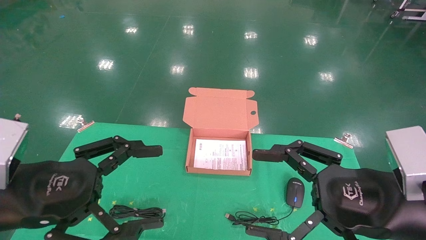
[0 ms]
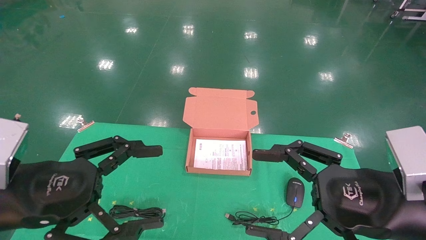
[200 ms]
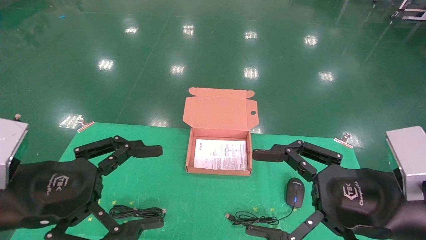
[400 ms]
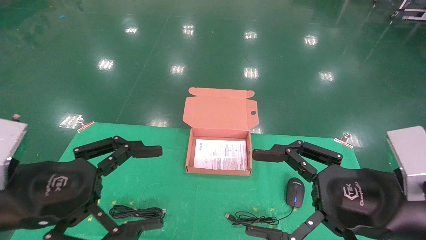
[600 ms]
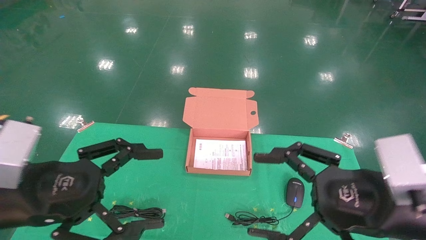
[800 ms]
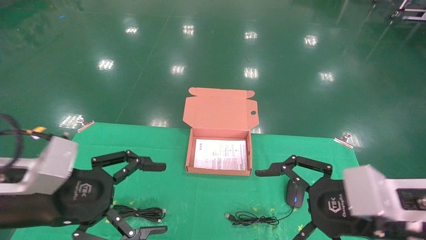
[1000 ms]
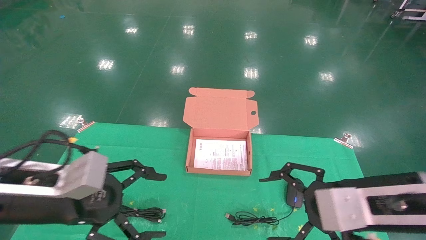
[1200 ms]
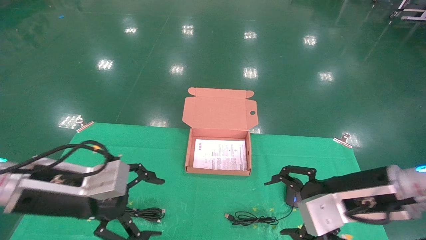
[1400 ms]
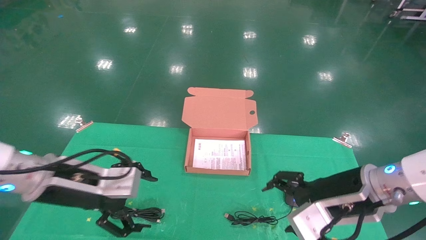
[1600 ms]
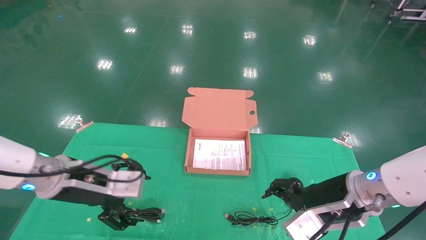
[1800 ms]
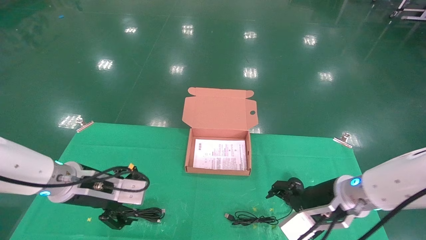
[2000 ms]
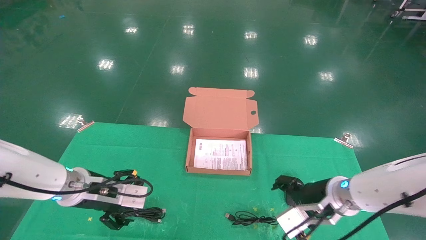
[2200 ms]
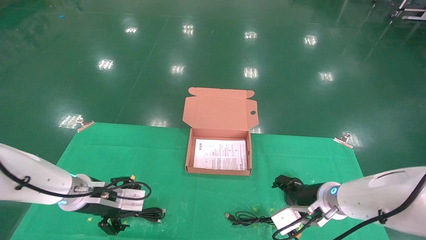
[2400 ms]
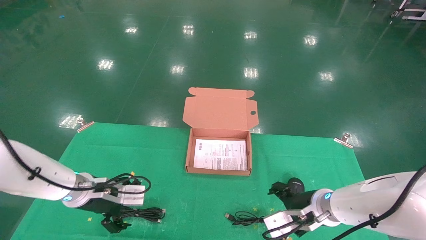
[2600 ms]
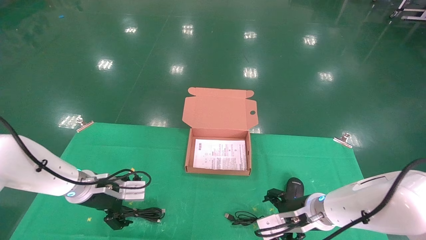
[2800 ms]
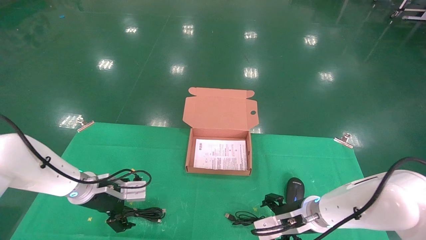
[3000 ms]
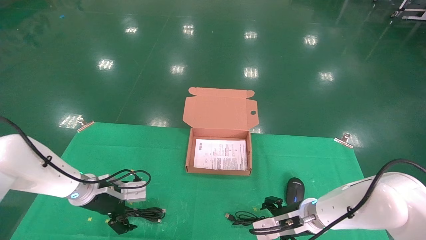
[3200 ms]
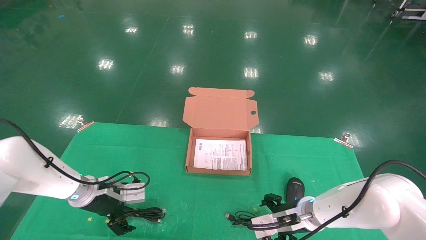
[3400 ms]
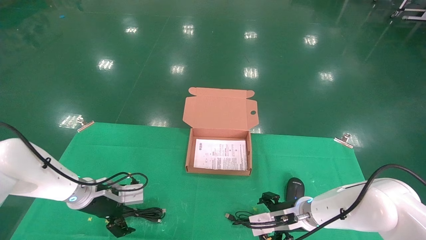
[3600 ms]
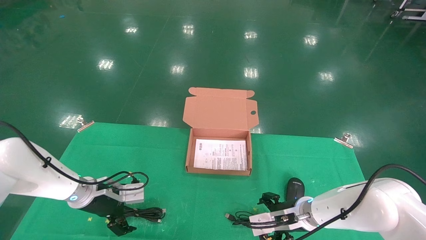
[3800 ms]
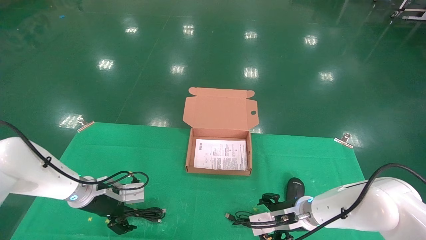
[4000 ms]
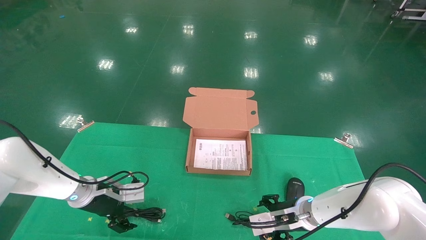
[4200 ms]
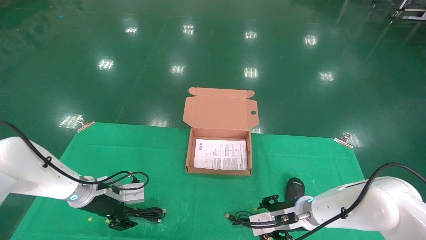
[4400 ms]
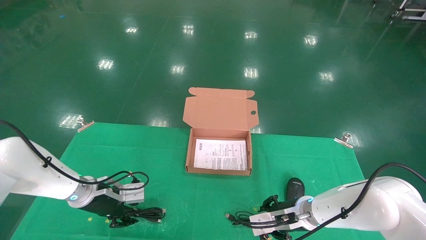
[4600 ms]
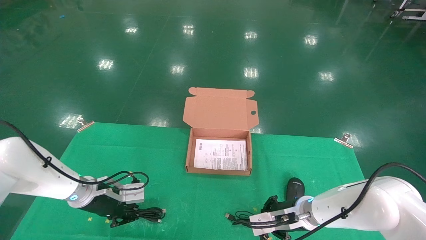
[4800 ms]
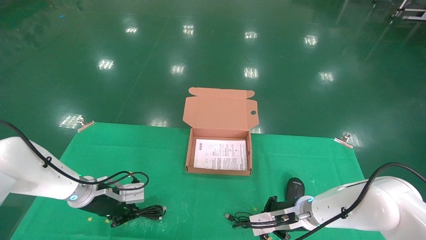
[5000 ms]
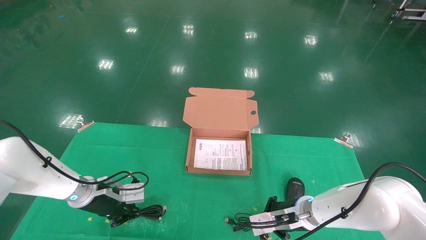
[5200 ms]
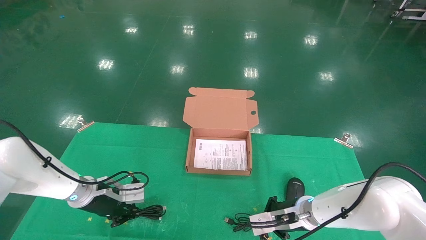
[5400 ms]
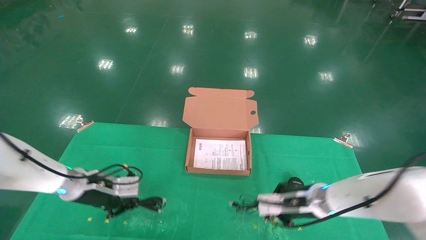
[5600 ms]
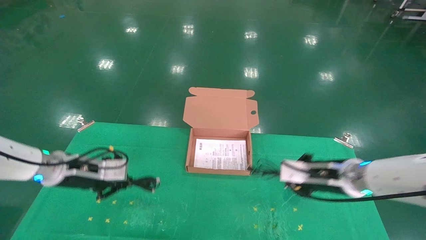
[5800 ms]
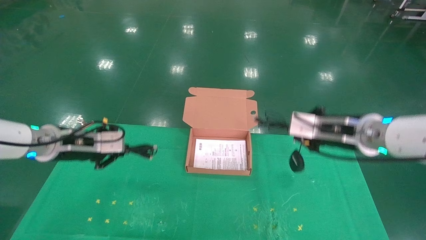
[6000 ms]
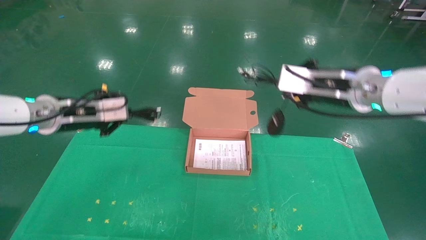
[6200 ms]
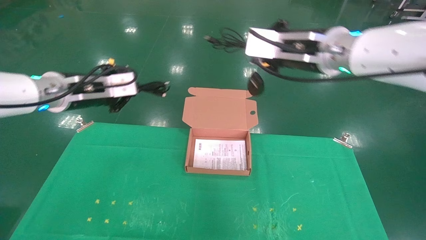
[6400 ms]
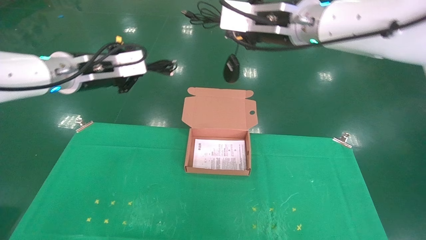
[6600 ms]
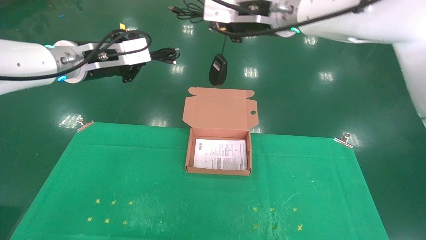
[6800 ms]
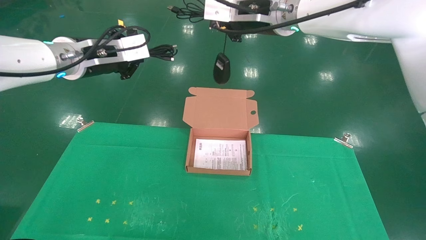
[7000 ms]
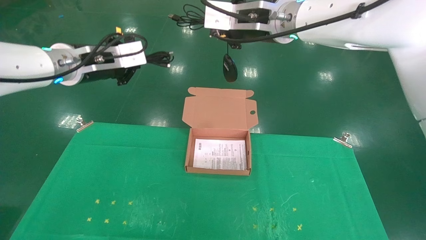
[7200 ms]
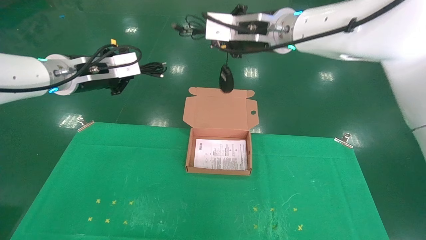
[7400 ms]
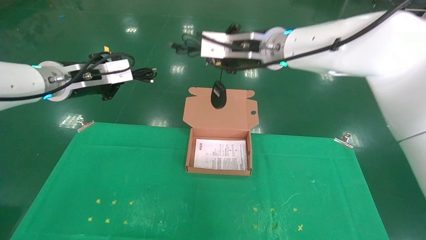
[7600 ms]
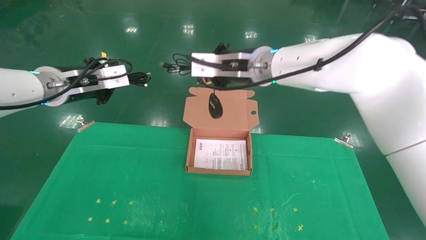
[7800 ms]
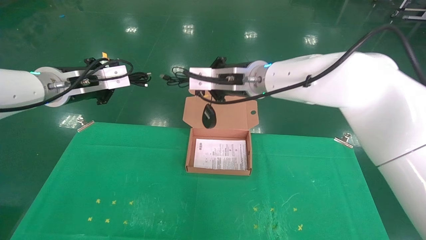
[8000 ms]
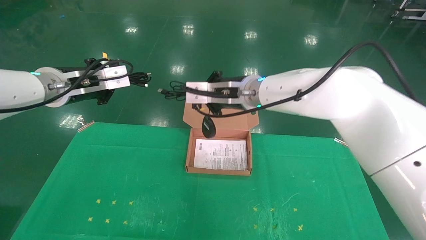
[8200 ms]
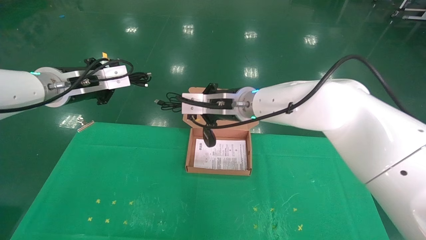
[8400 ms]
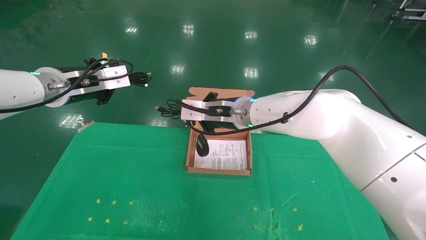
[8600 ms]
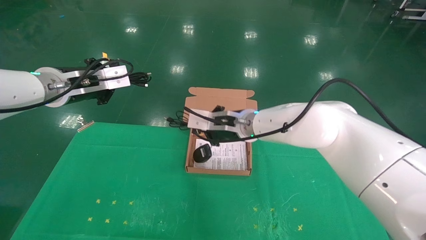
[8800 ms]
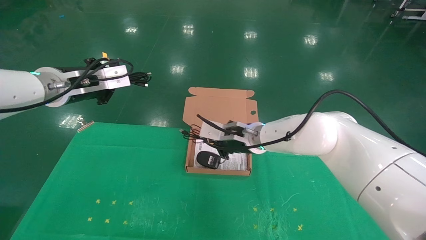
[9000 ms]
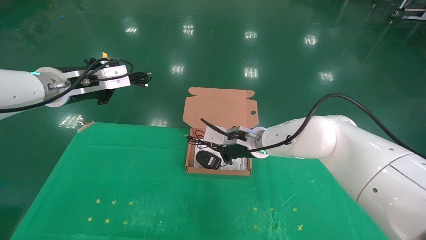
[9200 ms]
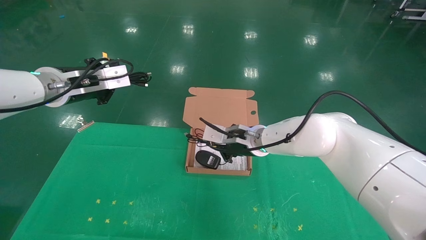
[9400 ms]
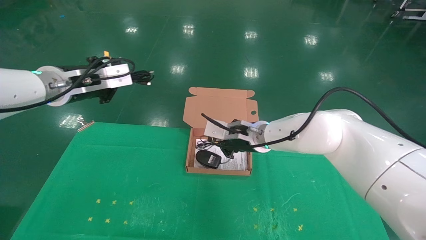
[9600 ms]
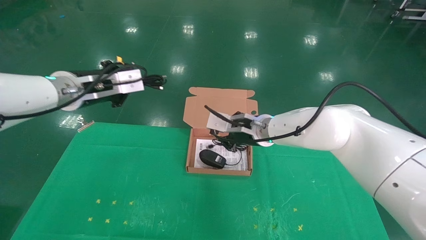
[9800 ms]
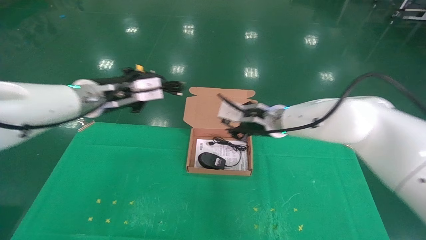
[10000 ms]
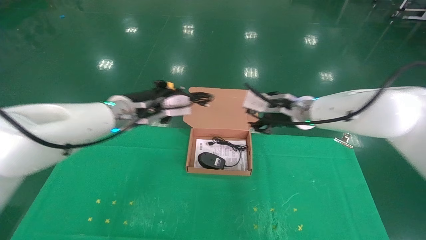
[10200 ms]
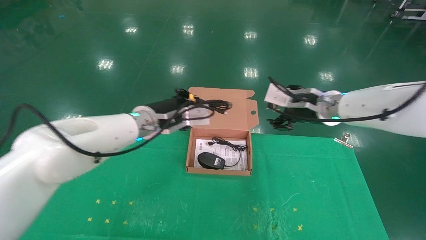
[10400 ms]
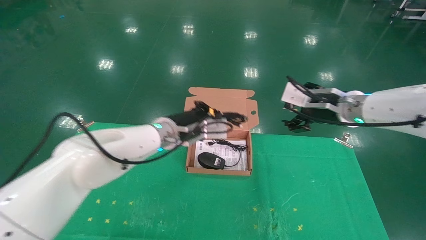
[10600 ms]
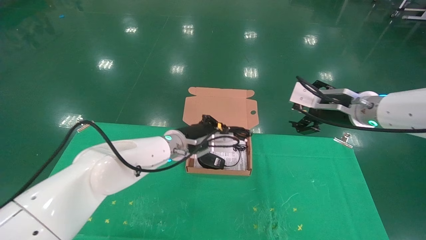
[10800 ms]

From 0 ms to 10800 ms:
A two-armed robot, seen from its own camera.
Task of the whole recording: grasp data cable left put into box grasp mouse right put into box.
Step, from 600 ms to 5000 ms: Grab and pick up both the mouse and power cord from the accessory packaging area at the same time.
From 0 ms to 1600 ms: Both grippers move forward, approximately 10 cm.
From 1600 ms to 3000 ms: The left gripper travels forward and downward by roughly 15 cm, while the right gripper is displaced downward and forward by roughly 15 cm.
From 3000 ms to 4600 ms: The right gripper closes its fingers, while the left gripper closes its fingers.
From 4600 ms to 6200 ms: The two grippers go approximately 25 cm upward. The right gripper closes. Meanwhile the left gripper closes up.
From 6200 ms to 7800 ms: The left gripper moves upward, about 5 cm. The right gripper shifts about 15 cm to the left.
From 7800 ms to 9200 ms: The right gripper shifts about 15 cm downward.
From 9200 ms to 10800 ms: The left gripper travels to the right and downward by about 25 cm; the right gripper moves to the right and upward, about 20 cm, and opens up.

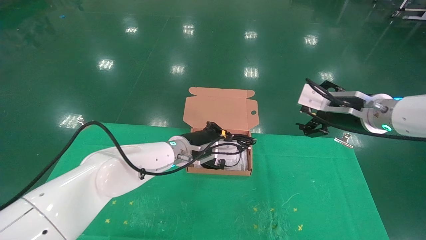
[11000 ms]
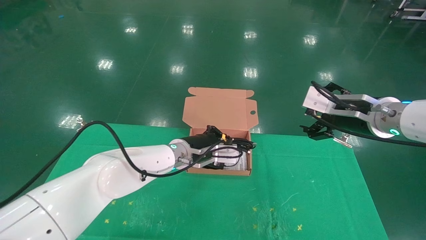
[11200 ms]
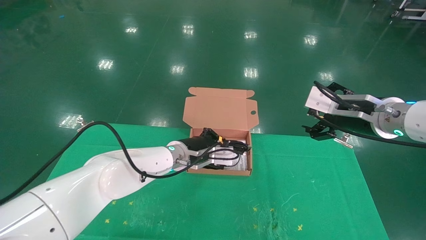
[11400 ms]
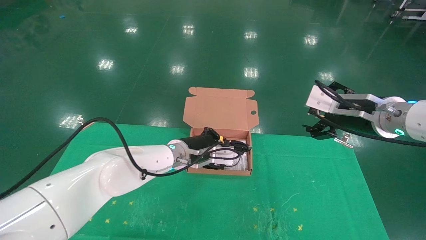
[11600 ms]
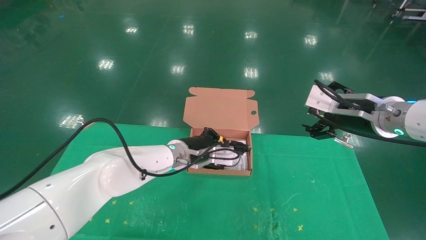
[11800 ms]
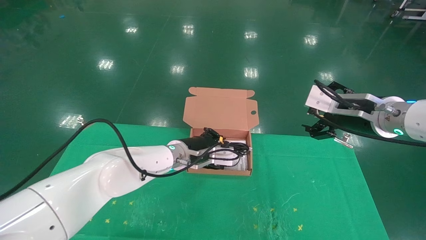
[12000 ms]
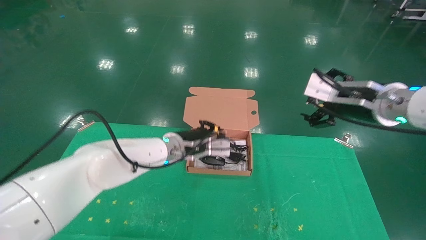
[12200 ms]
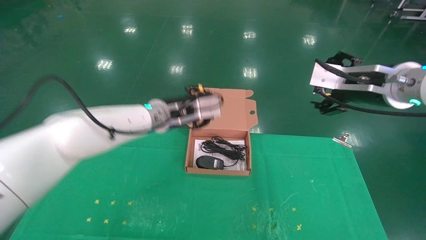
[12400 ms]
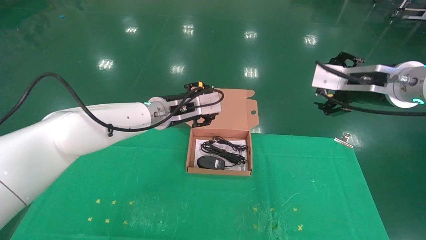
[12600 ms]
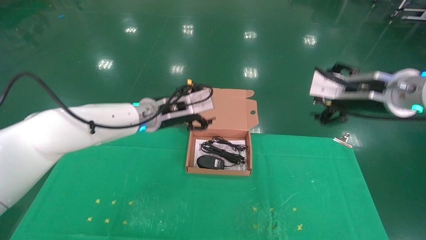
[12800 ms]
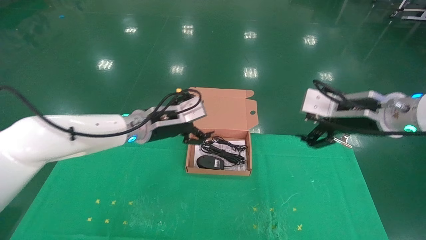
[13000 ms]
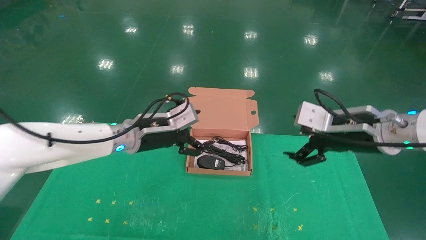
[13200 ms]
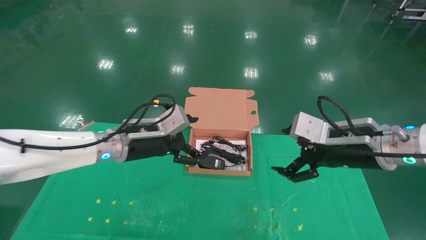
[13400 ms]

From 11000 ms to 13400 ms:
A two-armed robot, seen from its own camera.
Task of the whole recording: grasp data cable left put into box grasp mouse right put into box.
From 11000 ms to 12200 ms: The grippers make only small movements.
From 12200 ms to 13400 ms: The right gripper goes about 5 cm downward, while the left gripper shifts about 10 cm to the left and backward, and opens its fingers.

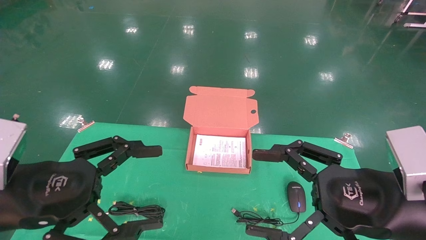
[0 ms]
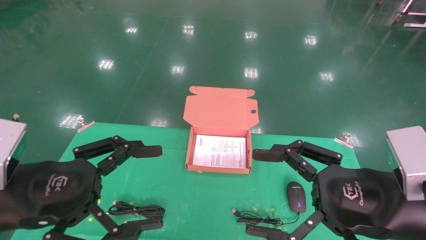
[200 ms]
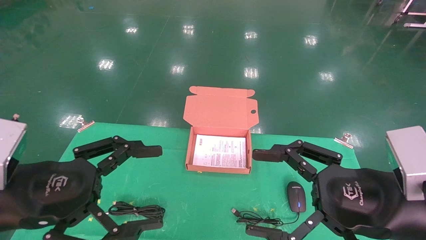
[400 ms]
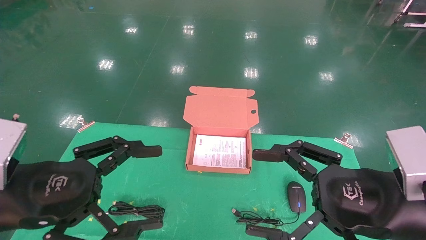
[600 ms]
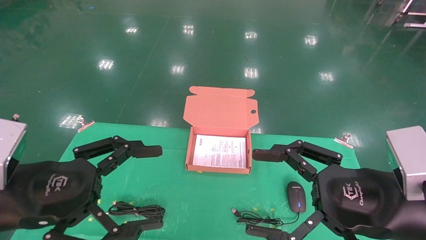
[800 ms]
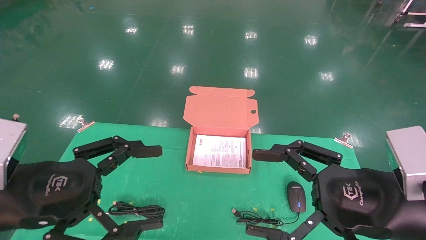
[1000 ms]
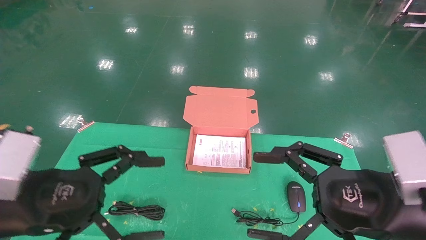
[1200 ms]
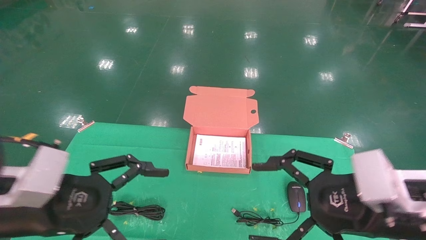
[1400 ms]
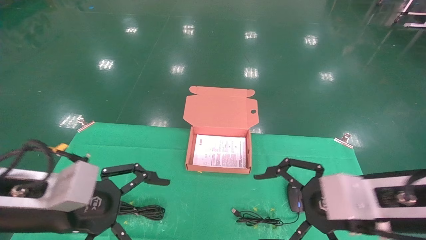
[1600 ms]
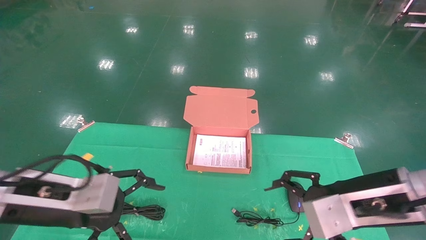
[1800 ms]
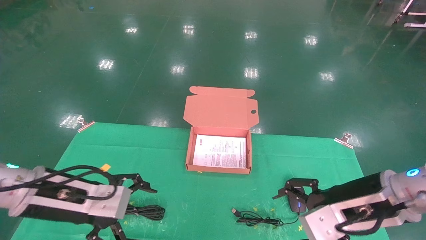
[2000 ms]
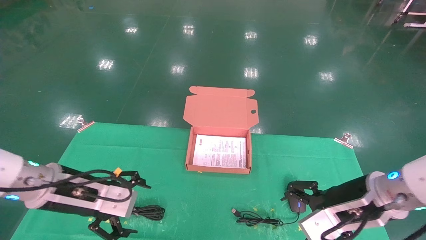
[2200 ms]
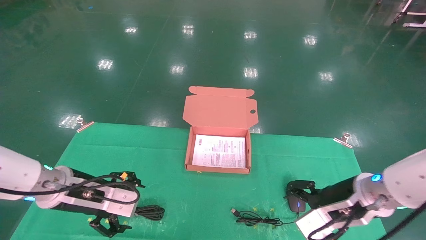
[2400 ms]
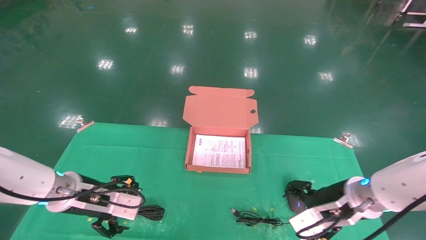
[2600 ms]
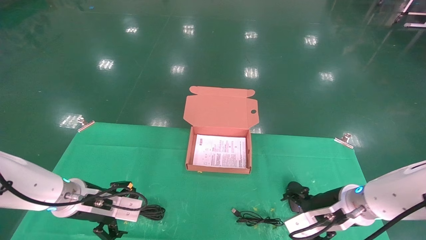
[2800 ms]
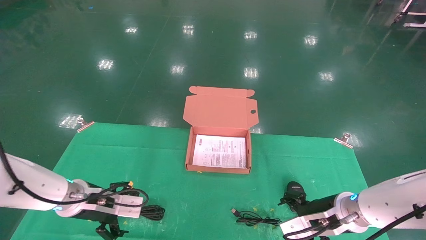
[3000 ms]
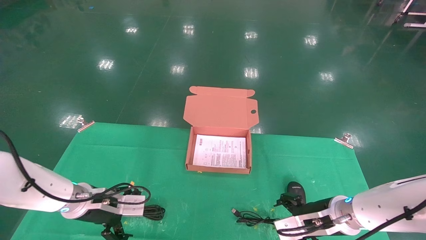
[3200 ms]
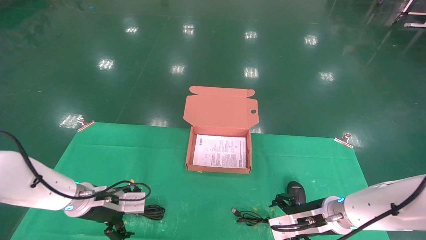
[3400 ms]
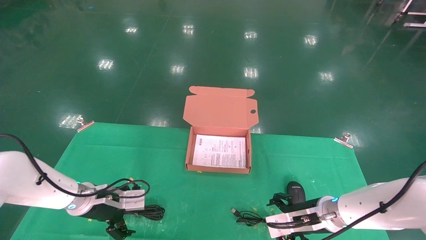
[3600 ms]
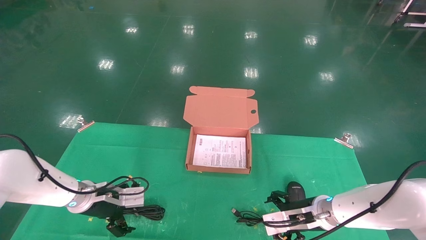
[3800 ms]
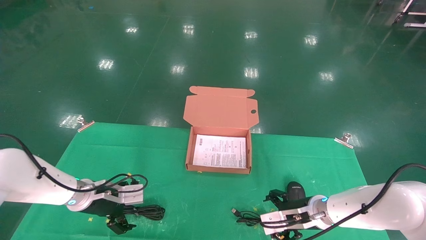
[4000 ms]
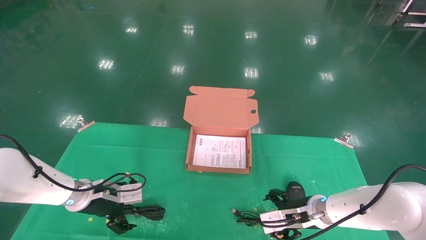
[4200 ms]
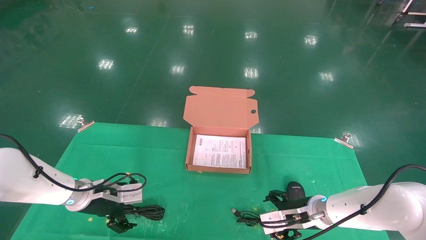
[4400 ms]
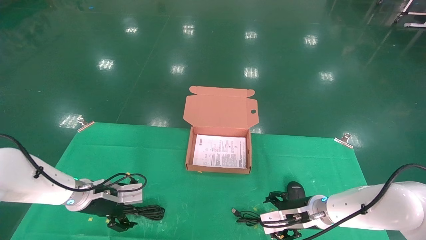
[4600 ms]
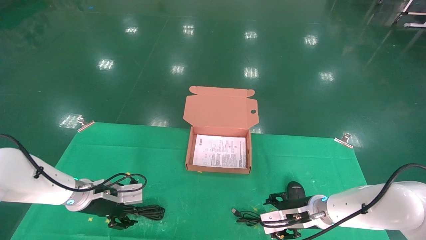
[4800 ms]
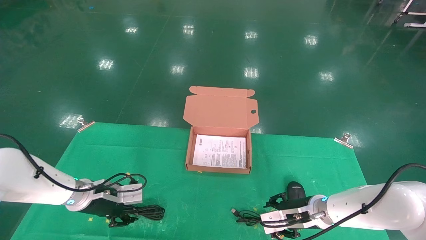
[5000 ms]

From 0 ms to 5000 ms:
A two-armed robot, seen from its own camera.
Task of the whole recording: grasp data cable left put into box grasp mouse right put into box.
From 1600 ms to 3400 ms: The left gripper moves forward and downward, roughly 20 cm. Meanwhile the right gripper heads downward and forward, covering roughly 20 cm.
From 3400 ms to 5000 ms: The right gripper moves roughly 5 cm, and closes up; the left gripper closes its fingers.
